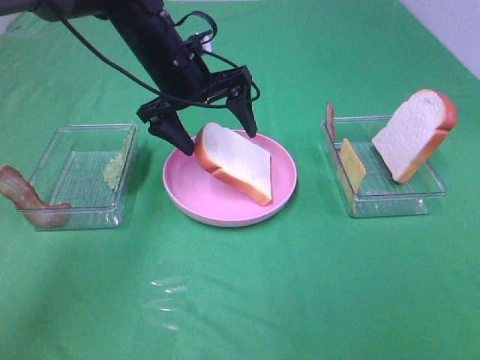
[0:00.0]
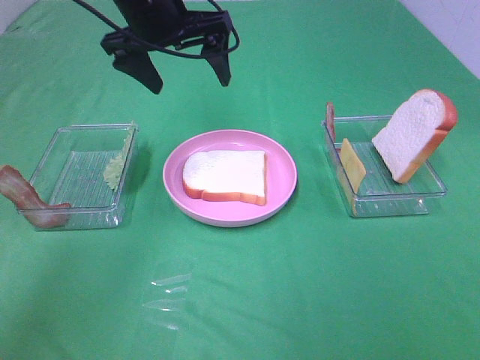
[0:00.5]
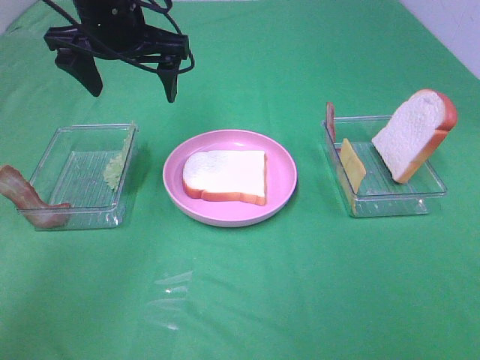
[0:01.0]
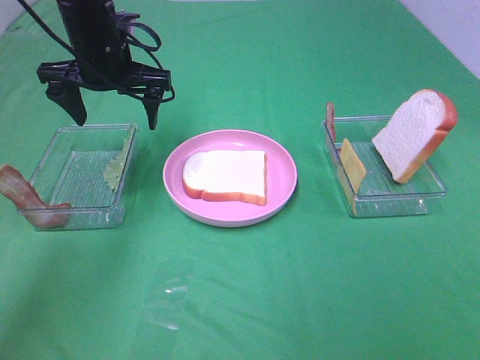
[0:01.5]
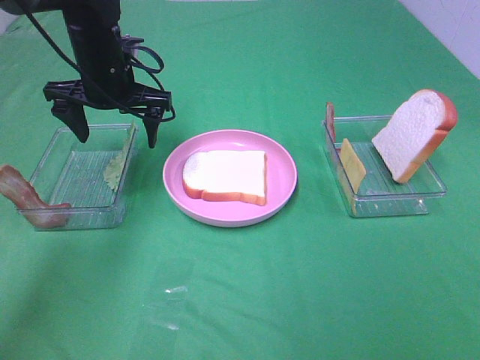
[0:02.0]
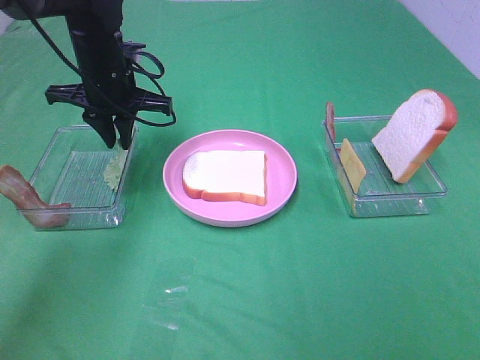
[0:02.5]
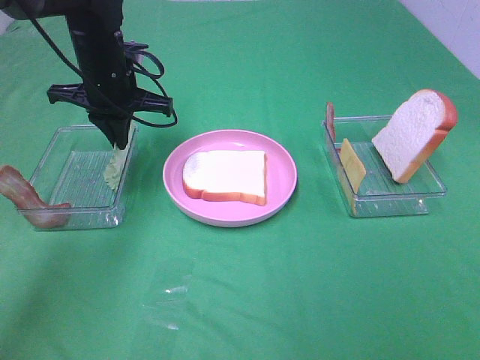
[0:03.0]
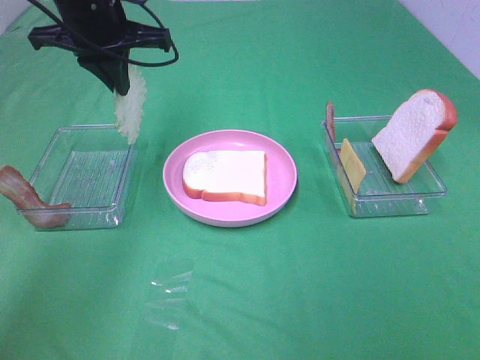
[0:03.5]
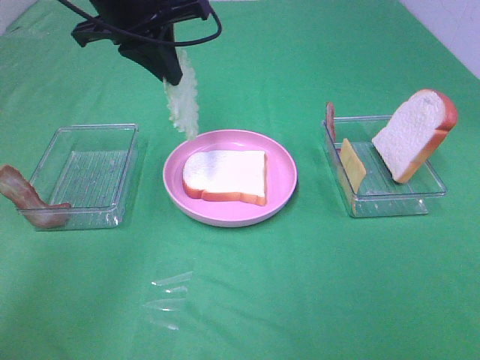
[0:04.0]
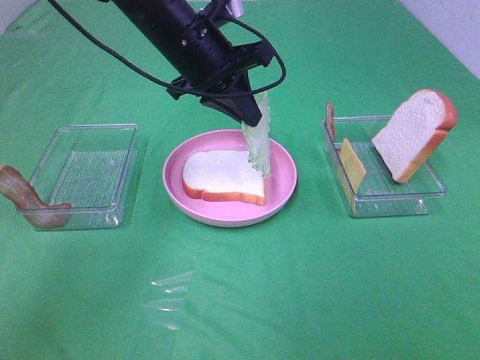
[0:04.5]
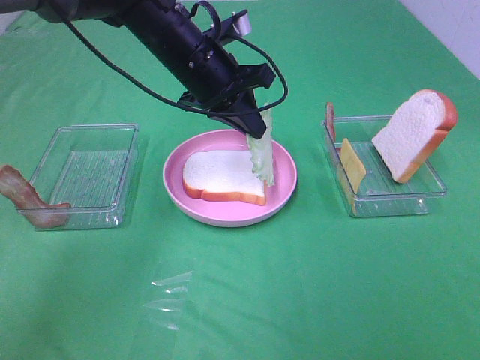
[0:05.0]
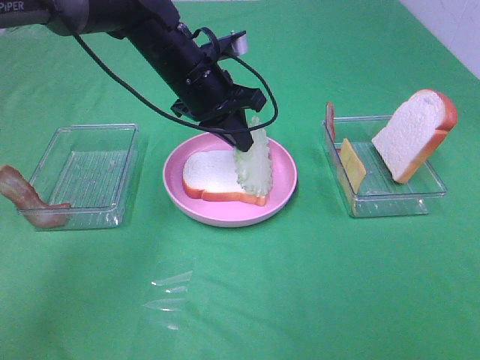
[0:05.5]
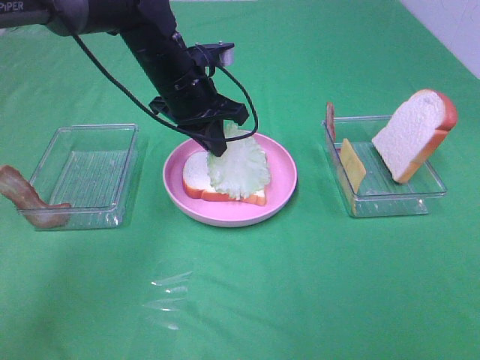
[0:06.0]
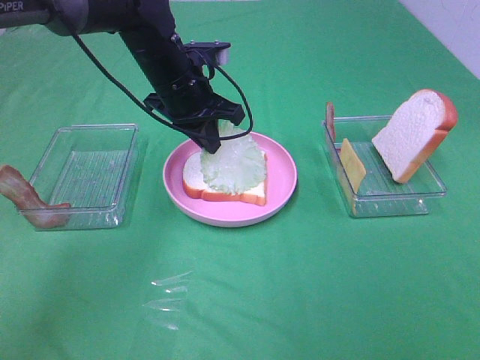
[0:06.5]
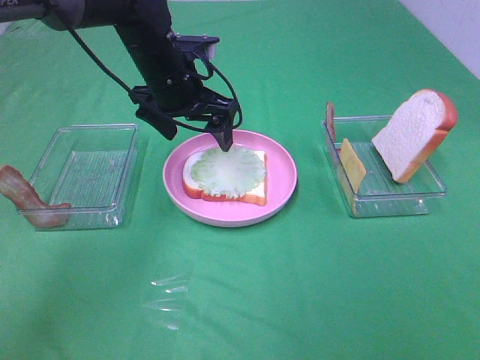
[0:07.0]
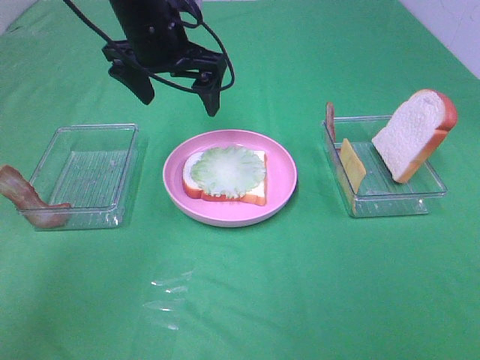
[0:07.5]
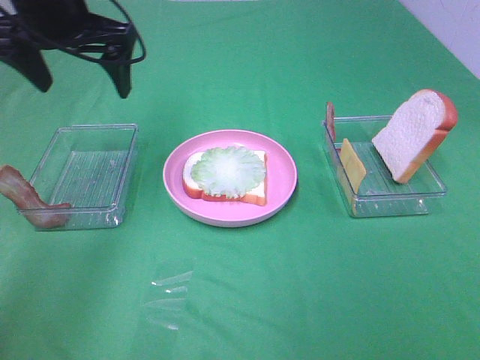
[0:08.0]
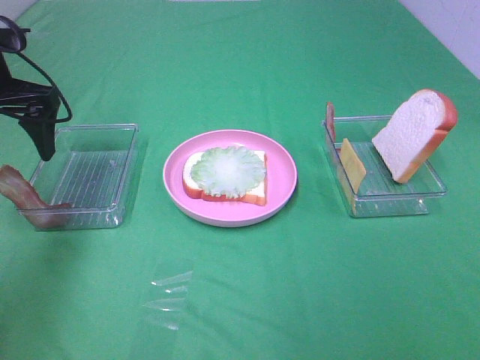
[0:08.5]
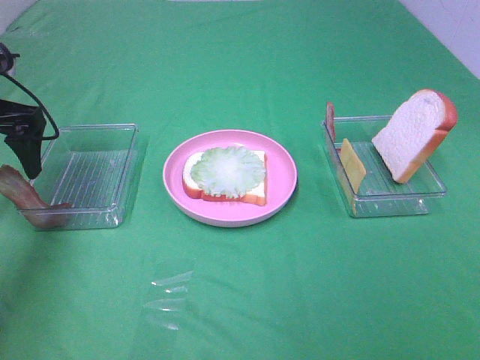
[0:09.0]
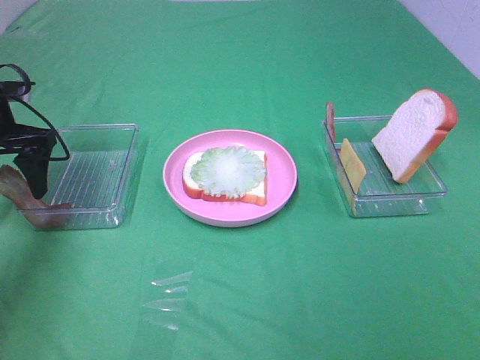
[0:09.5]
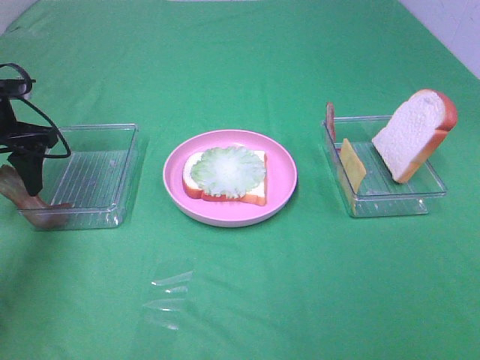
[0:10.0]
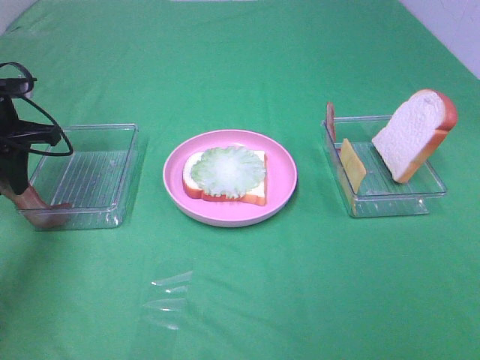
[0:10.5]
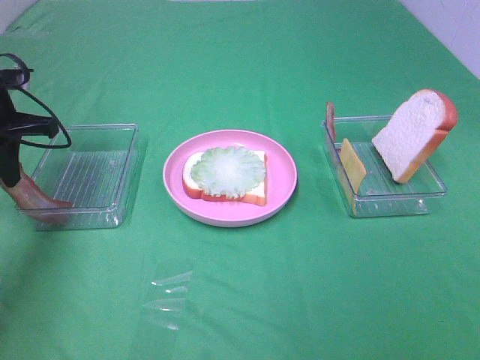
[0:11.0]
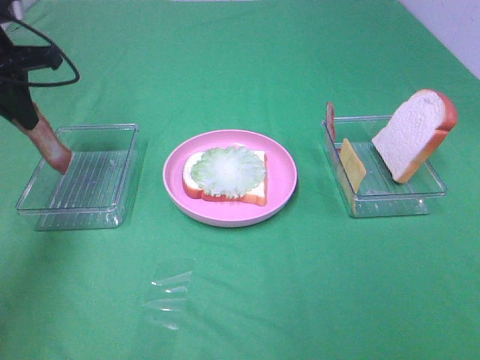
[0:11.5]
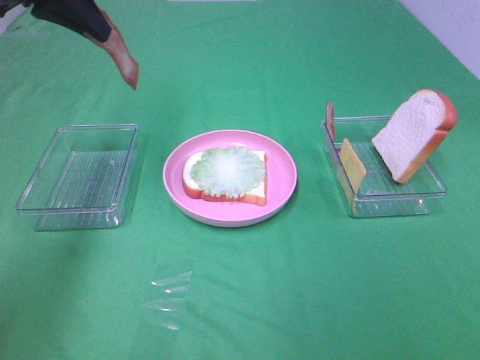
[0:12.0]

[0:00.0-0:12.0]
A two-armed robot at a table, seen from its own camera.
Task of the whole recording: Make sandwiches.
Step, 0:00.5 to 0:03.0: Left hand:grab the lettuce slice.
Step, 0:03.5 to 0:06.5: Left hand:place the lettuce slice on the bread slice.
Step, 0:07.0 to 0:10.5: Left hand:grab the bacon.
0:00.0 to 0:02.0: The left gripper goes roughly 10 cm to the left, and travels upward and back again, roughly 10 cm each way.
0:02.0 to 0:04.0: The left gripper goes about 10 cm upward, and closes.
0:04.0 to 0:06.0: The left gripper heads downward, covering roughly 10 cm.
0:06.0 to 0:08.0: The left gripper travels to the left and upward by about 15 cm, and opens its fingers.
0:08.0 to 0:10.0: The left gripper is displaced downward and to the left by approximately 15 cm.
0:10.0 to 0:12.0: The left gripper shifts roughly 20 cm upward and to the right, and closes its fingers.

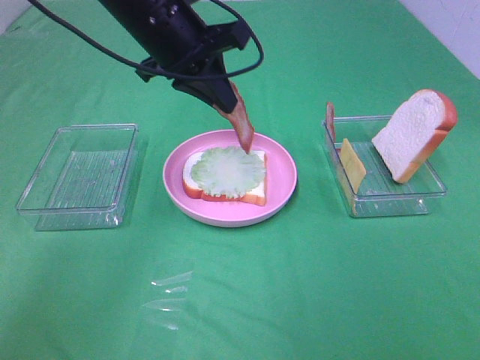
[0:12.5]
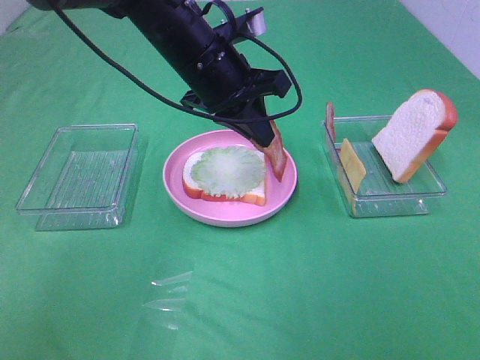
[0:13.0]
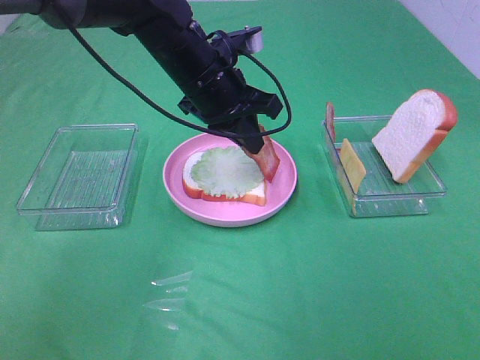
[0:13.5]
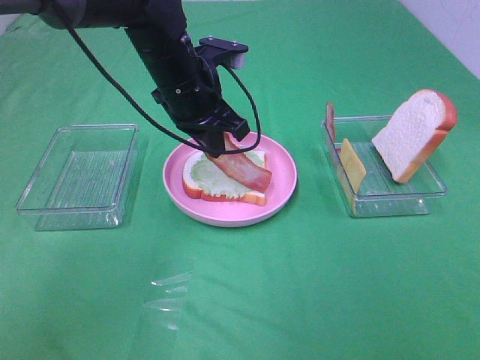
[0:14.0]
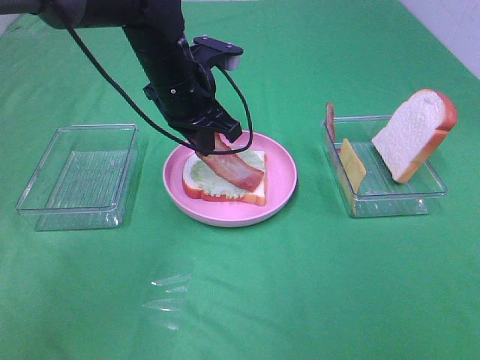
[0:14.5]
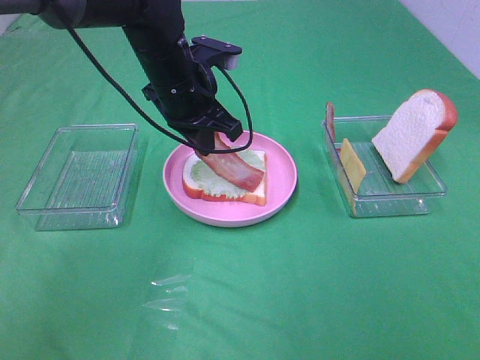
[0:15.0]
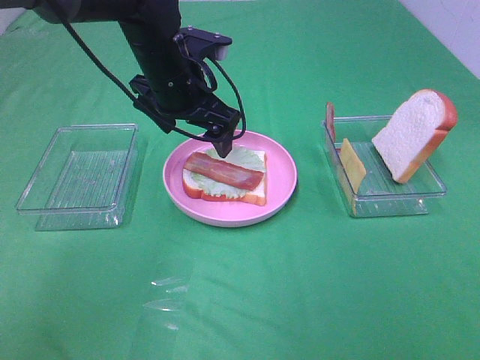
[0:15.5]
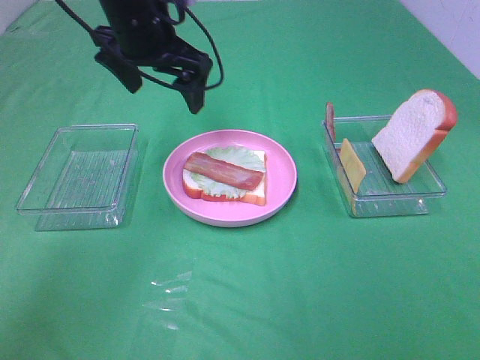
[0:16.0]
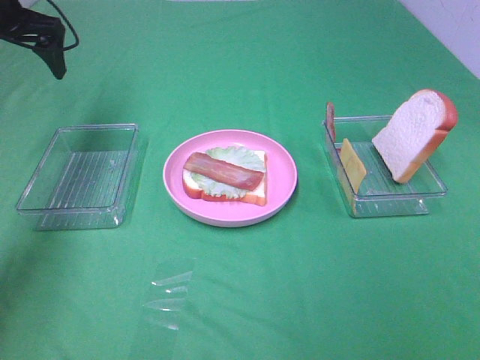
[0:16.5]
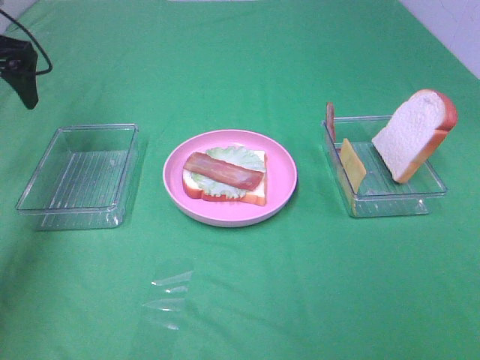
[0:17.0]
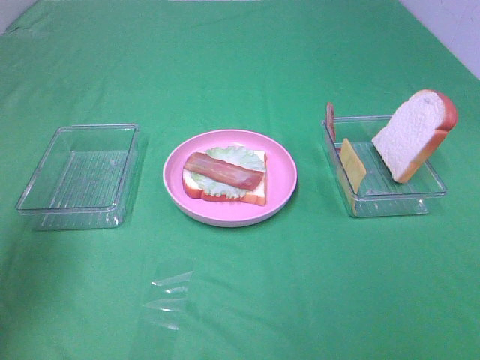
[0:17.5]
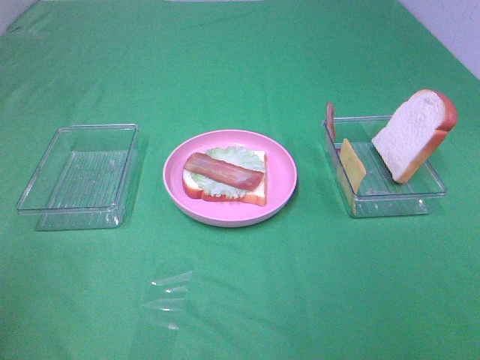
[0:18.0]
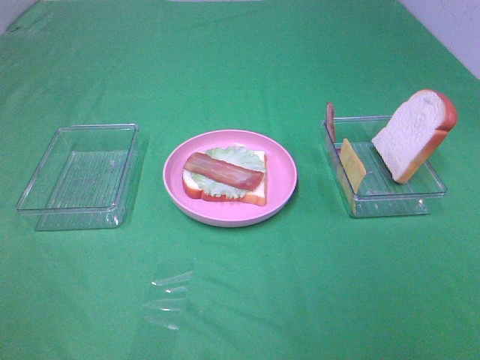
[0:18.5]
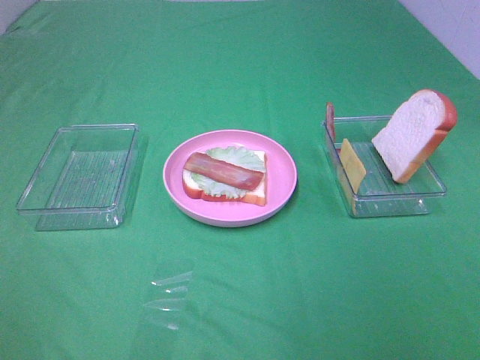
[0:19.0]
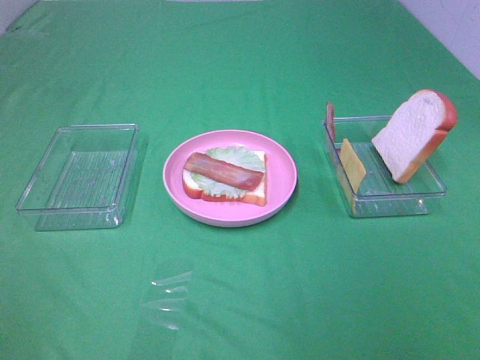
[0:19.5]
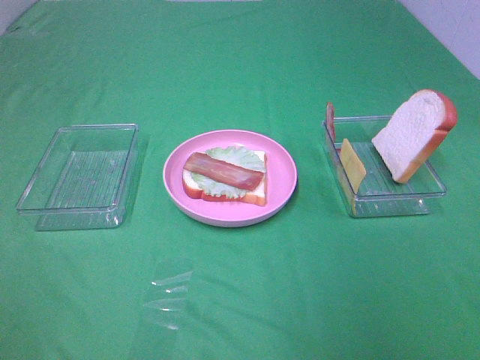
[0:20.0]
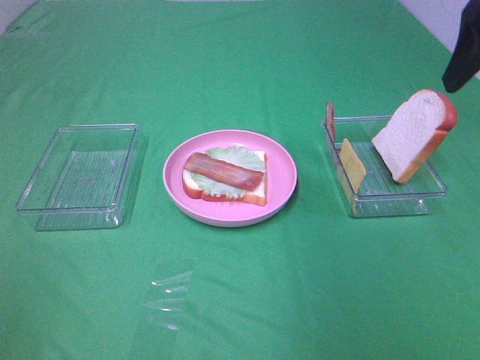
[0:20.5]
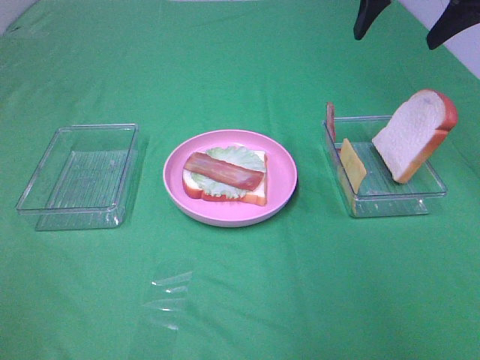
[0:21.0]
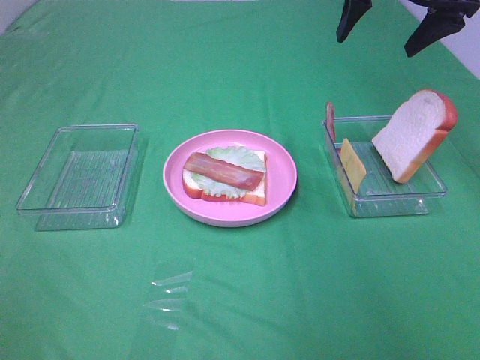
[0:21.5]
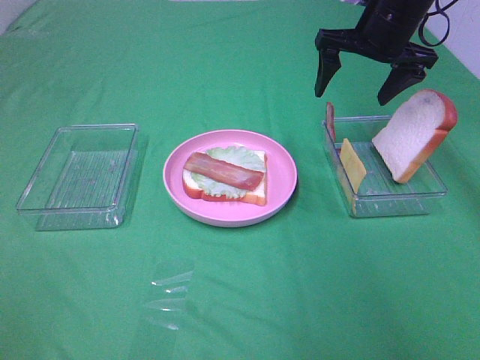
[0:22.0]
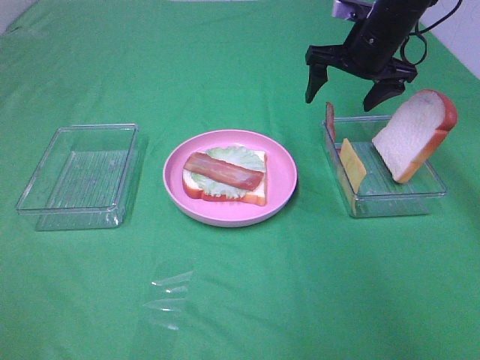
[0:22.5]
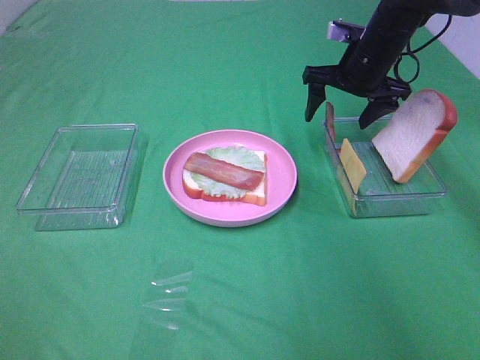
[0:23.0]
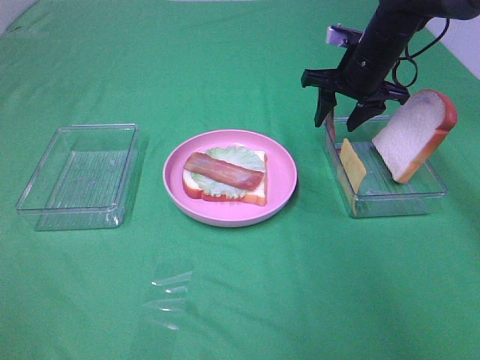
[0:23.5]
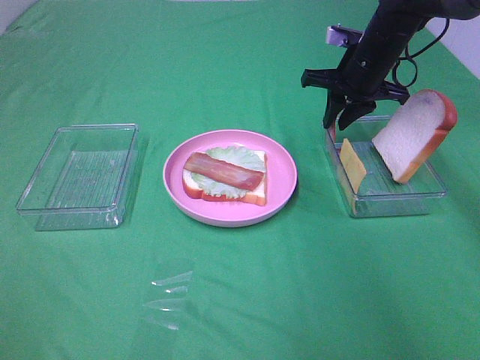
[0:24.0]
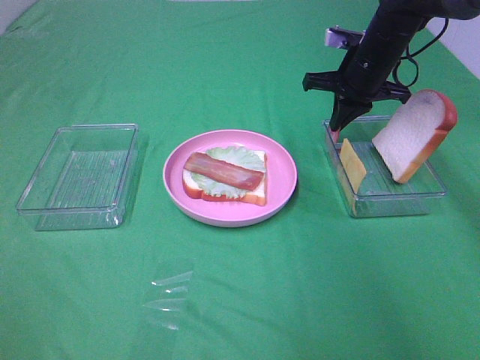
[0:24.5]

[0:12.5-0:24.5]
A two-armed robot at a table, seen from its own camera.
Task of the whole recording: Make sandwiches.
Step, 0:12.5 to 0:15.0: Left hand:place bacon on lettuce slice.
Step, 0:15.5 to 0:24.0: Right hand:grab the bacon.
0:12.5 to 0:14.5: The left gripper goes roughly 5 cm downward.
0:14.5 to 0:16.5: The left gripper heads to the left, covering approximately 25 cm, and opens its fingers.
0:16.5 to 0:18.5: The left gripper shifts approximately 50 cm backward.
0:18.5 to 0:20.5: The right gripper shifts approximately 30 cm forward.
0:20.5 to 0:22.5: The right gripper heads forward and downward, covering approximately 25 cm.
0:22.5 to 0:24.5: The right gripper closes up.

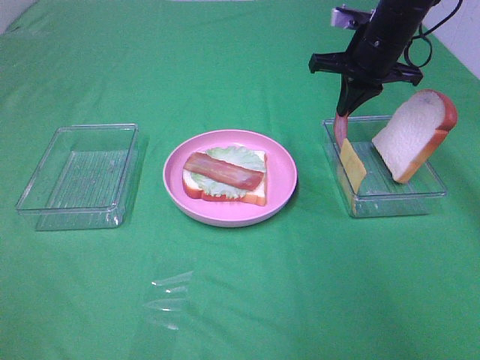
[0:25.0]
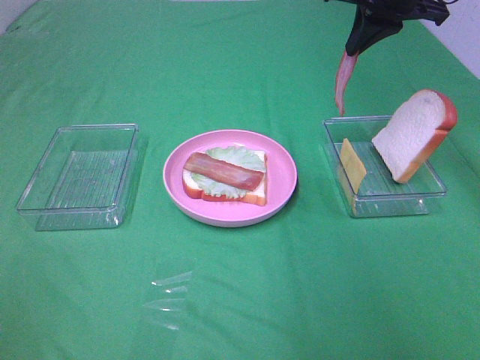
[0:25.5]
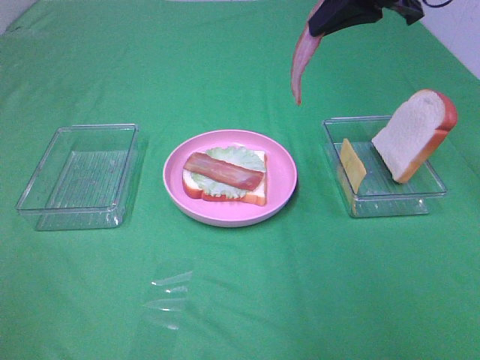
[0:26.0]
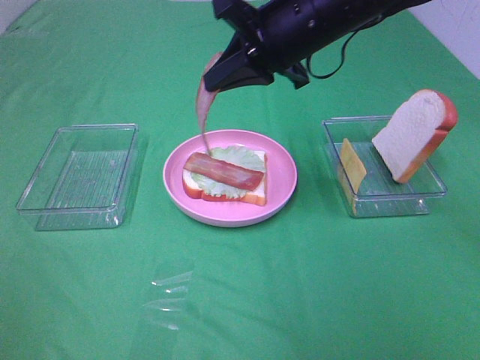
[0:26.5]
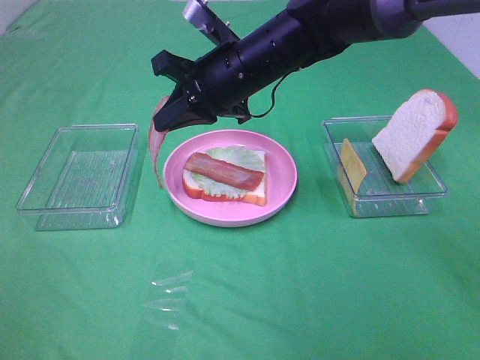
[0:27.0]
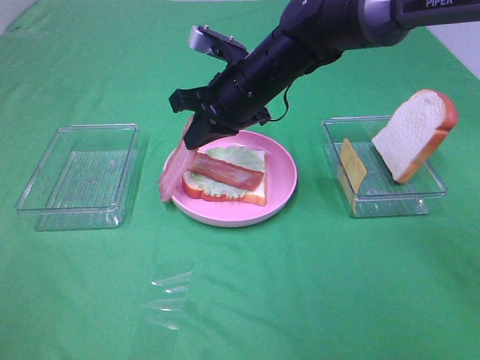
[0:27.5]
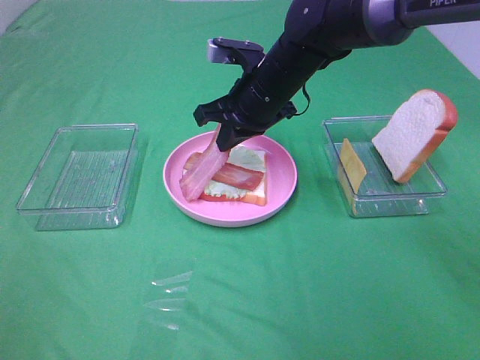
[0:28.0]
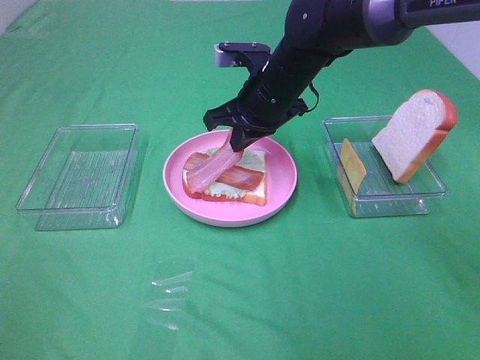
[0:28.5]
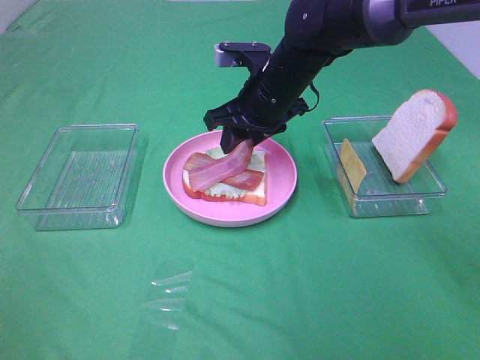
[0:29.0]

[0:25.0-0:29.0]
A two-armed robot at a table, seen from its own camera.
Task of the whole recording: Make sandwiches.
0:25.0 to 0:27.0: The right gripper heads to the left and backward, covering approximately 20 cm.
0:27.0 to 0:29.0: The right gripper shifts by approximately 5 cm, and opens.
